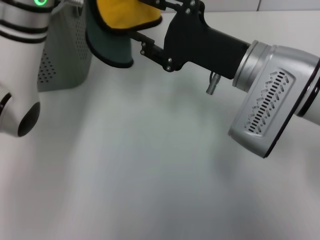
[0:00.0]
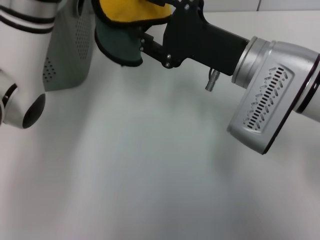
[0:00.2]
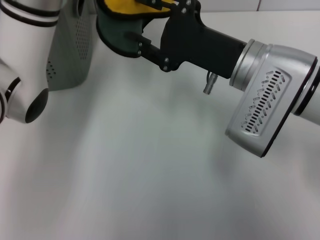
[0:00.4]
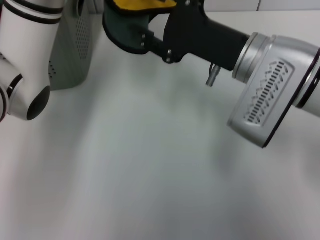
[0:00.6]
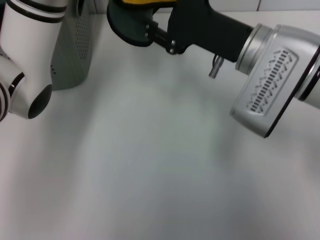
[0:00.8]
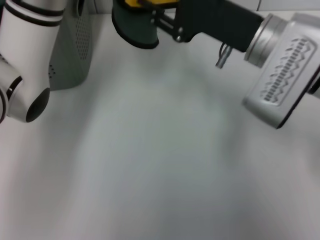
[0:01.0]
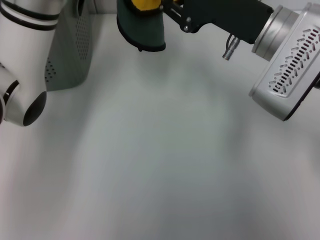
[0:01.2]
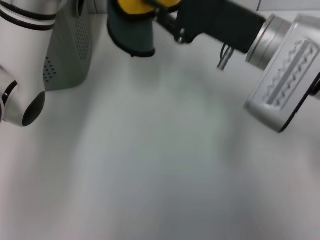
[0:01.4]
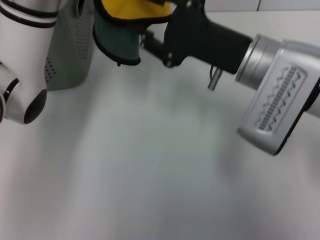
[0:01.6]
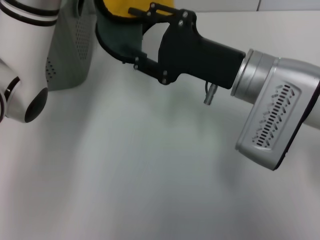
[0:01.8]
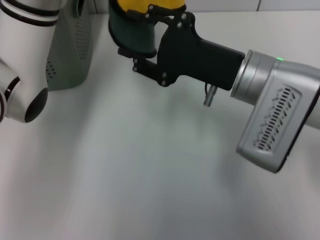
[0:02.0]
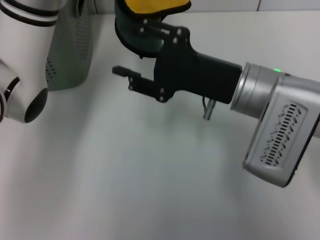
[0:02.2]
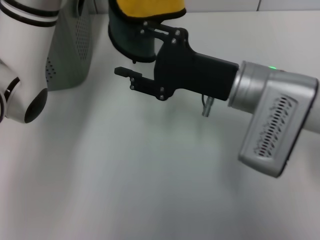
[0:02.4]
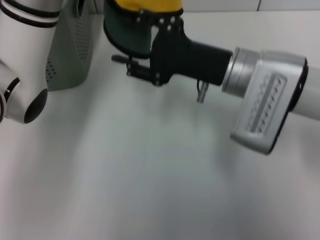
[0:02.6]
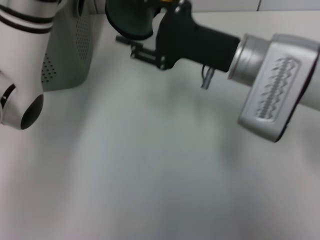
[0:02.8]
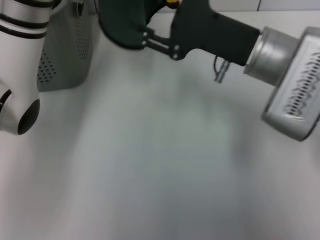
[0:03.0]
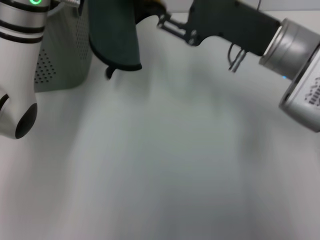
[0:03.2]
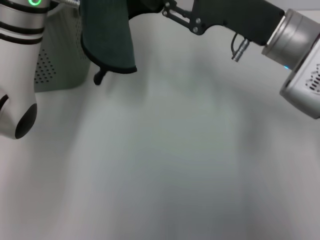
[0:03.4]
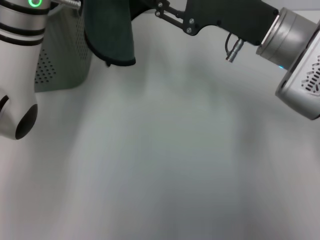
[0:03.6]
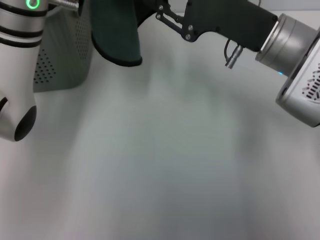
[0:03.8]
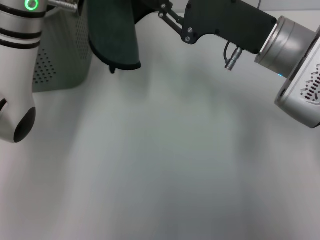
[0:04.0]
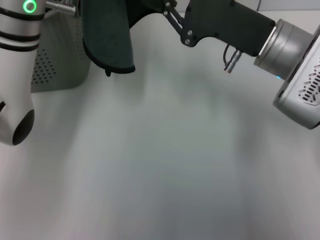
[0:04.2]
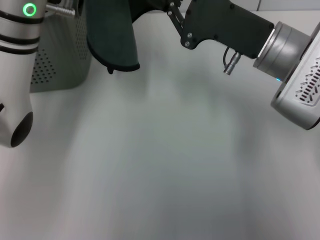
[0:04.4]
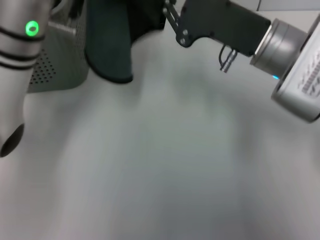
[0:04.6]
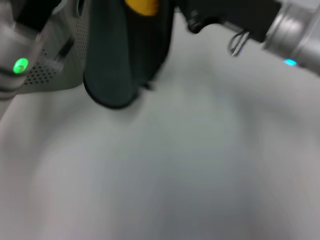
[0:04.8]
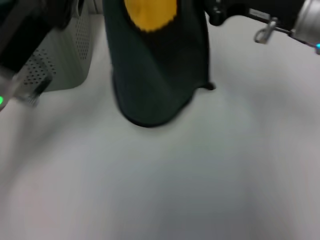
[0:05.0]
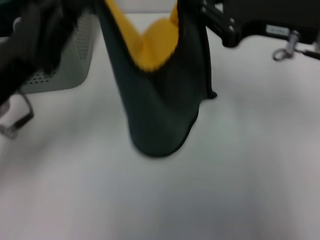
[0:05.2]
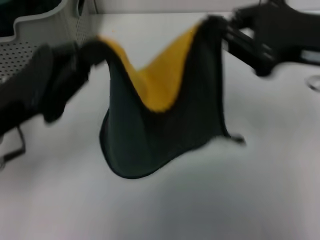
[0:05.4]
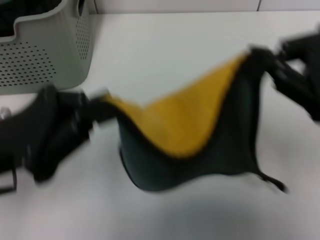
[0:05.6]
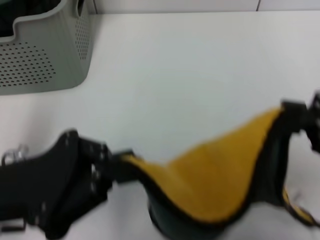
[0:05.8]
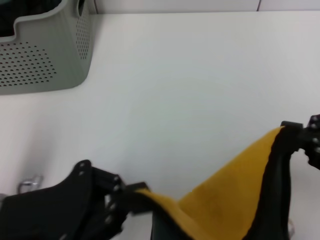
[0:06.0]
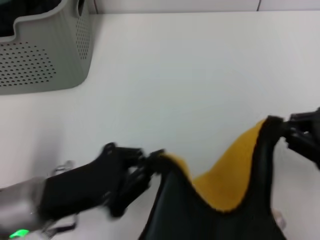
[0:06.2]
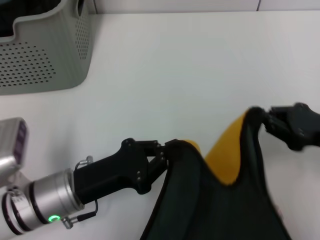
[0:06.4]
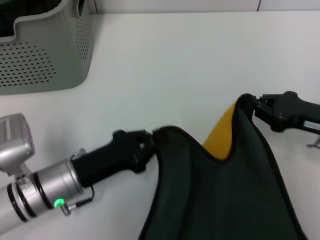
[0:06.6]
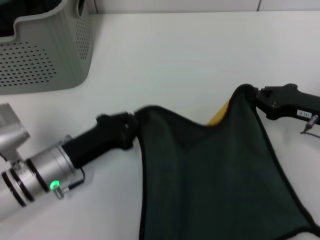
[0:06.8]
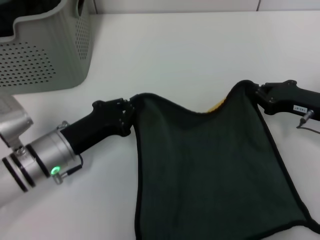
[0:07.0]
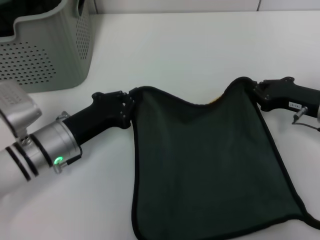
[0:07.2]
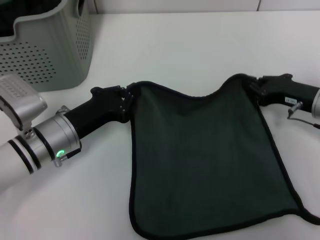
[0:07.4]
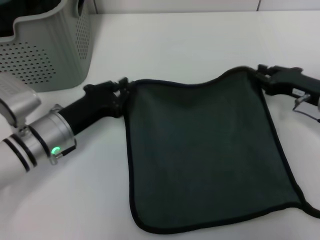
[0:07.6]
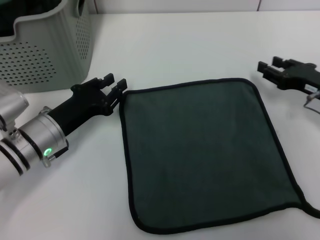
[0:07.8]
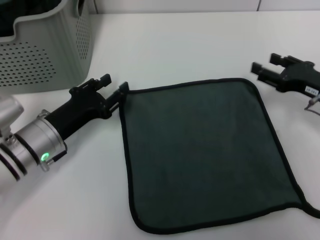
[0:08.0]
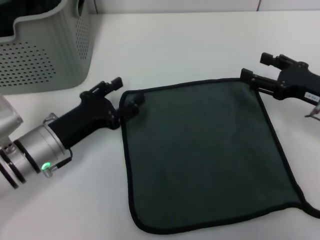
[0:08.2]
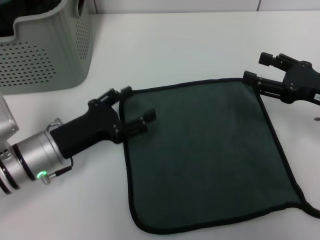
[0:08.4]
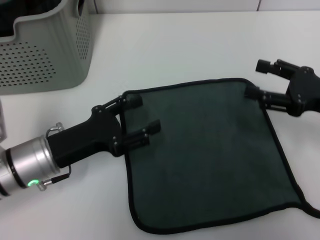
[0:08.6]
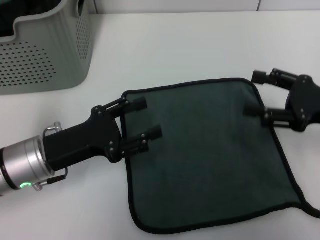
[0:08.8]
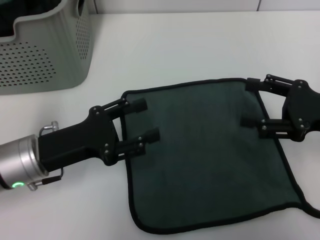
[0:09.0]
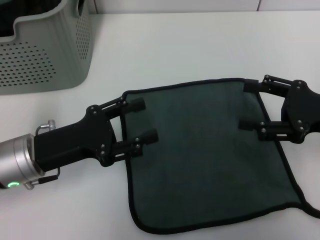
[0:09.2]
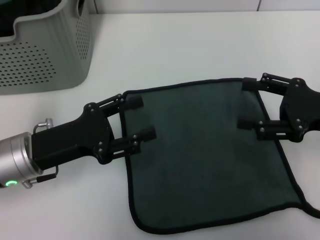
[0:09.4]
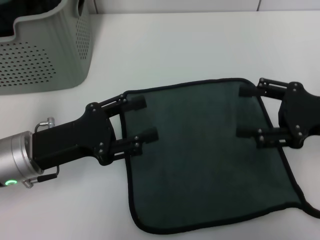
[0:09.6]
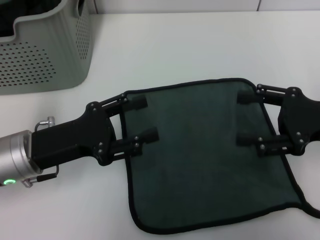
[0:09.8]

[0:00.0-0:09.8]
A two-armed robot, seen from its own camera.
Task of the whole recording: pick up the towel from the storage box and lay it flat on the table.
Step, 0:00.0 to 0:04.6: Spread the towel flat with the left gripper.
Step, 0:04.8 to 0:07.6: Spread the towel flat with the right gripper.
0:01.4 to 0:02.8: The grippers stay close to where they were, moving slightly.
0:04.2 to 0:05.6: The left gripper moves backward and to the left, about 15 cm, while the right gripper shifts about 15 cm backward, to the right and upward, and closes its fingers.
0:05.6 to 0:07.0: The right gripper is displaced downward and forward by approximately 20 cm. The left gripper shifts some 15 cm downward and forward.
0:07.0 to 0:08.4: The left gripper opens its fingers, while the right gripper opens its fingers.
